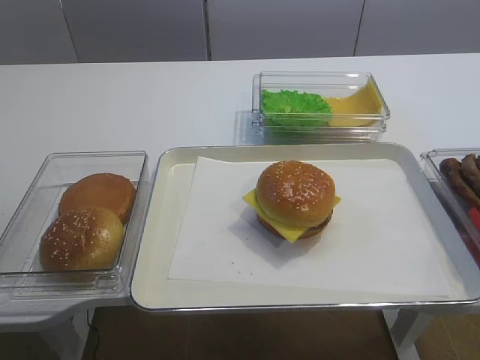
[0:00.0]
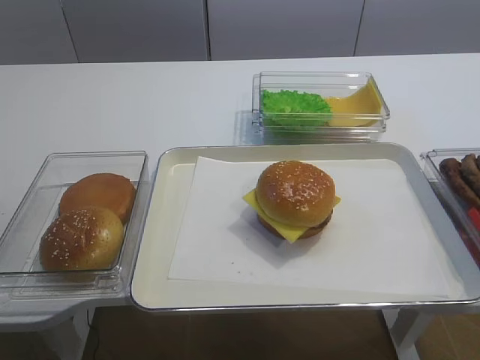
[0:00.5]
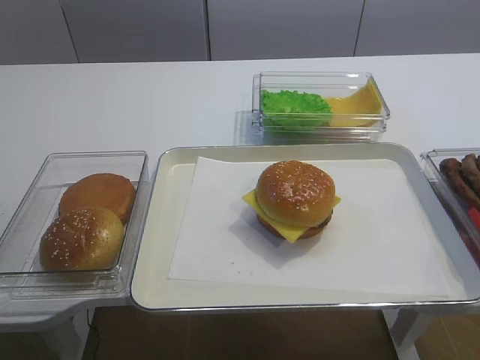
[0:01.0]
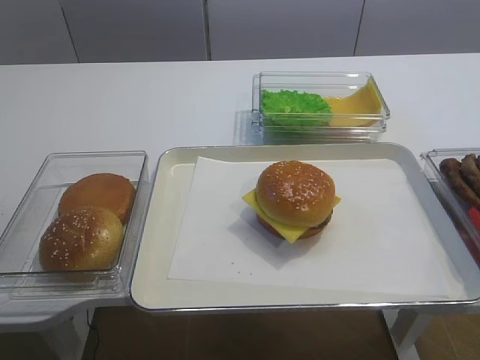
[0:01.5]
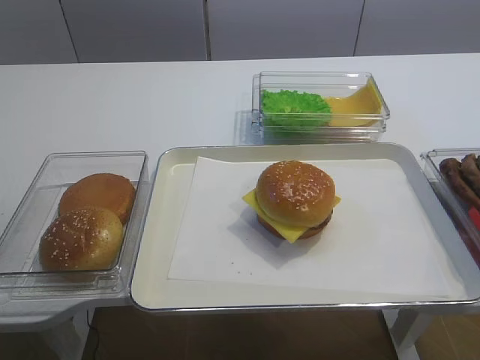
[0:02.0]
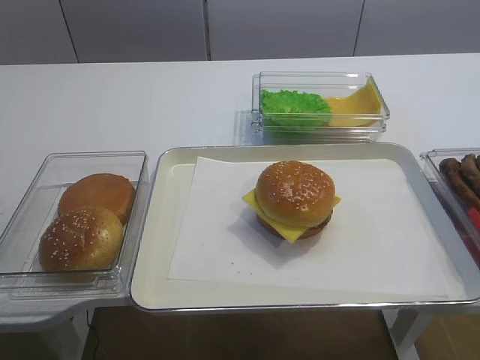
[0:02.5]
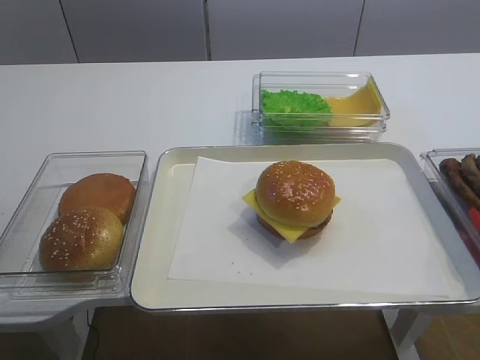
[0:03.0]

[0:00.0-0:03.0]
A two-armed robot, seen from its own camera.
0:01.5 to 0:03.0: The two grippers keep their place.
